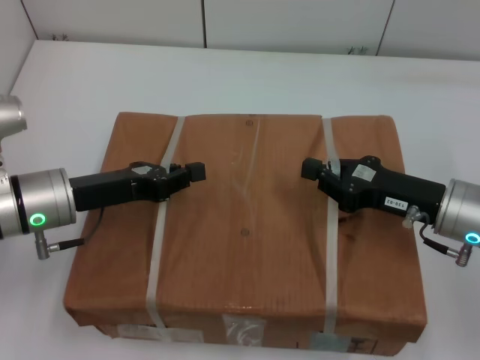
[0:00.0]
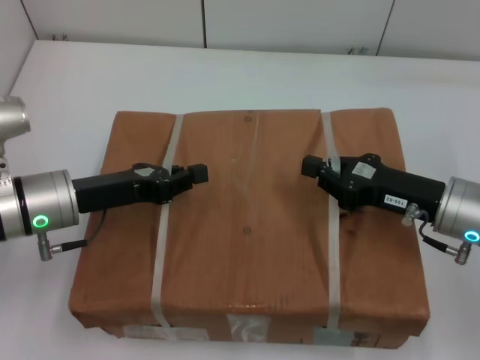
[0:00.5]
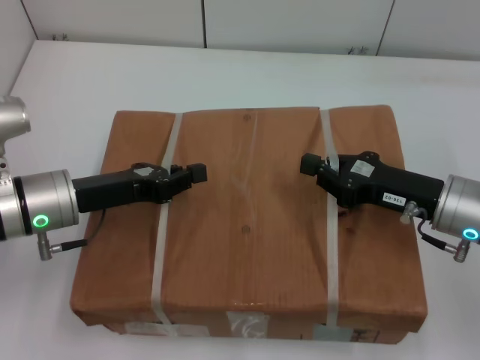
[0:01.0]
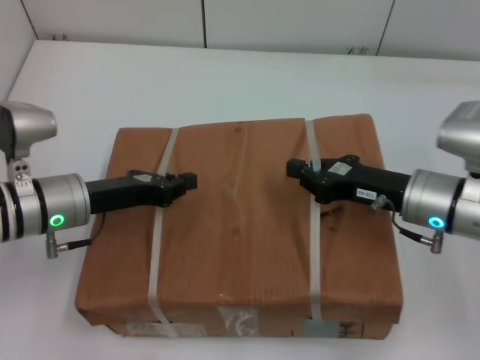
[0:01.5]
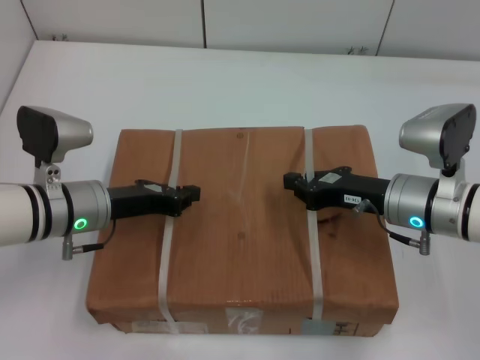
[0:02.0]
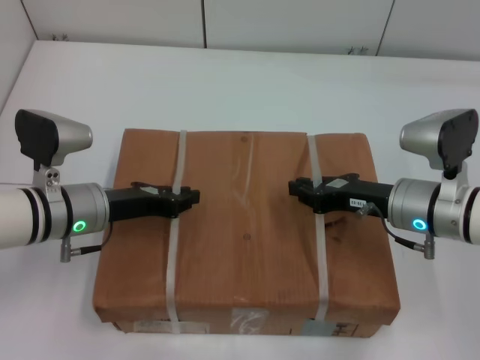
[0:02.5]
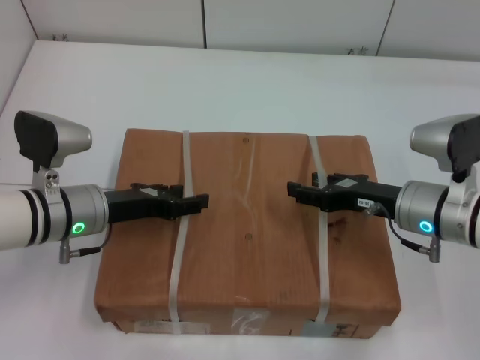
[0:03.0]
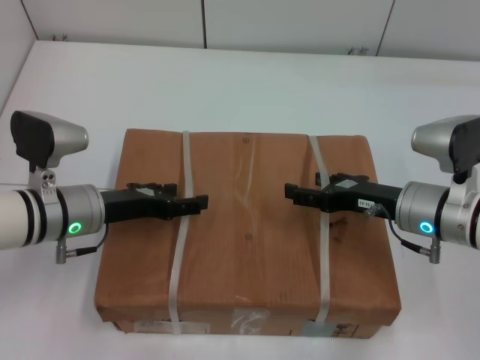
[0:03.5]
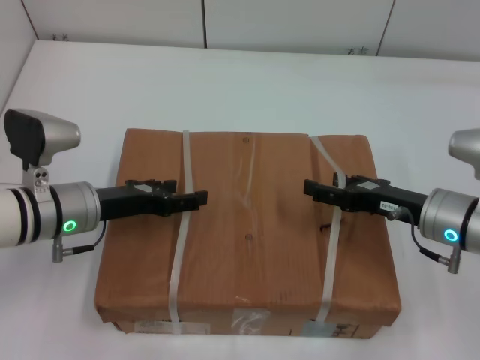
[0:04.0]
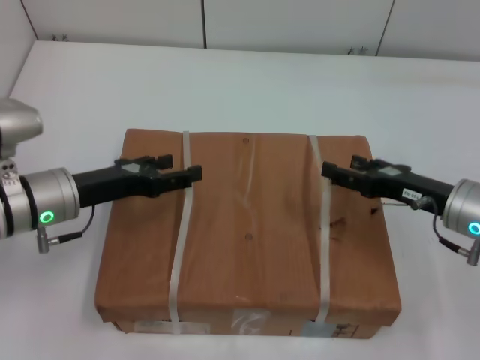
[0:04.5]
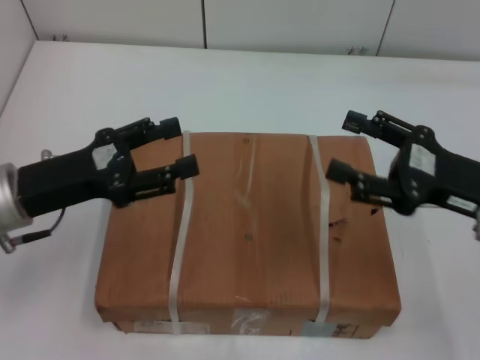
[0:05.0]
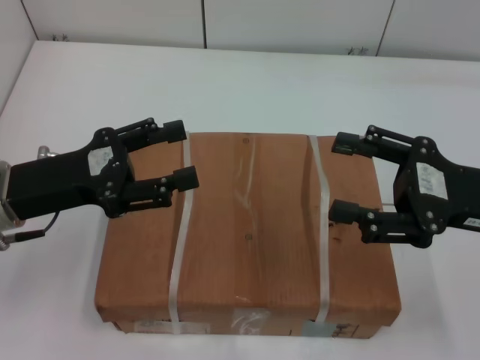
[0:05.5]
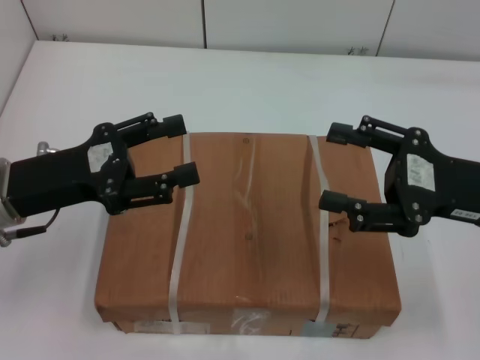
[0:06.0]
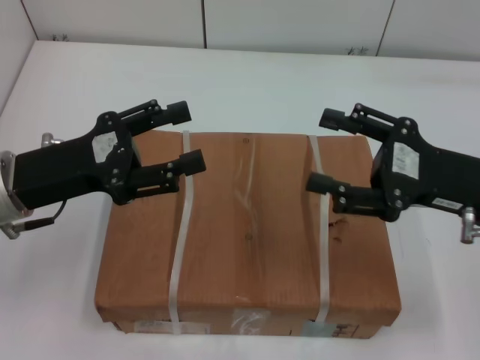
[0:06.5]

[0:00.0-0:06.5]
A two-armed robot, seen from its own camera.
Task of the whole recording: place the box on the table with both arms.
Step, 0:00.0 to 0:02.5: Place the box on the table with left gripper.
Step, 0:00.0 to 0:02.5: Place the box on the table with right gripper.
Step, 0:03.0 to 0:04.0: Loosen the box on the table with left gripper.
Step, 0:03.0 to 0:04.0: Loosen the box on the table with right gripper.
0:00.0 to 0:02.0: The right gripper ends up some 5 cm from where it was.
0:02.0 to 0:04.5: The right gripper is displaced to the right by about 5 cm, and opens up; the left gripper opens.
0:04.5 to 0:06.5: Both grippers move upward, about 5 cm.
